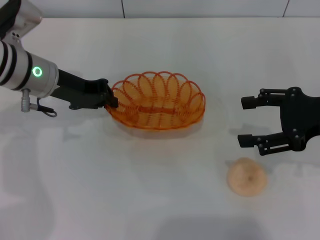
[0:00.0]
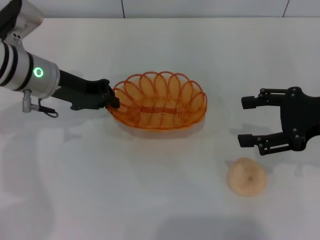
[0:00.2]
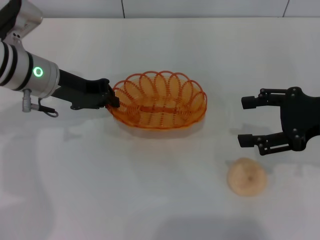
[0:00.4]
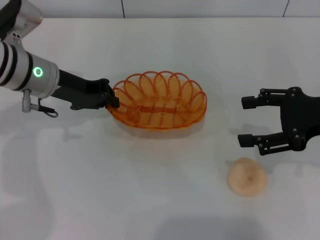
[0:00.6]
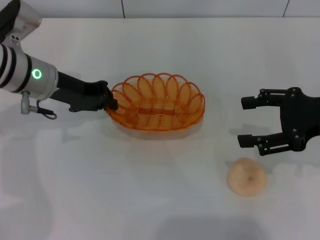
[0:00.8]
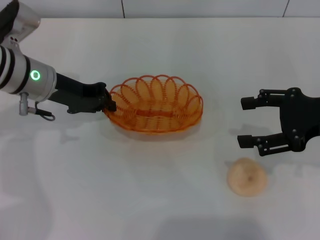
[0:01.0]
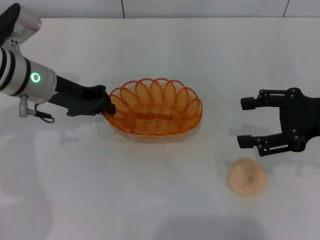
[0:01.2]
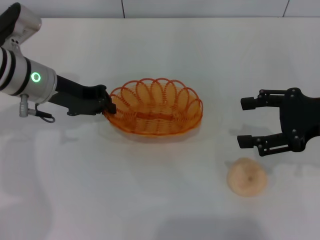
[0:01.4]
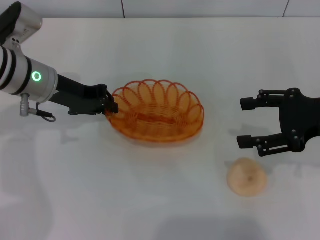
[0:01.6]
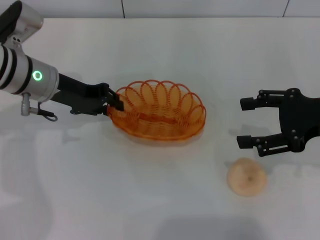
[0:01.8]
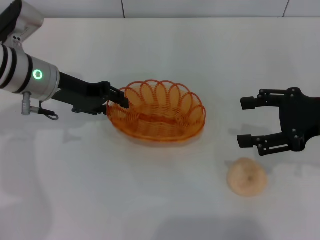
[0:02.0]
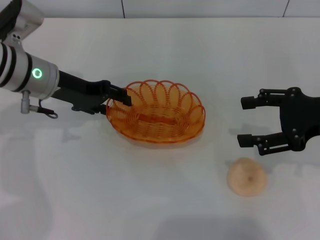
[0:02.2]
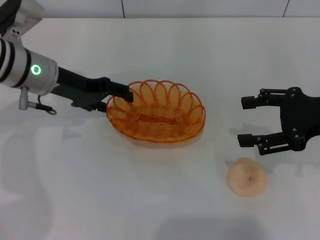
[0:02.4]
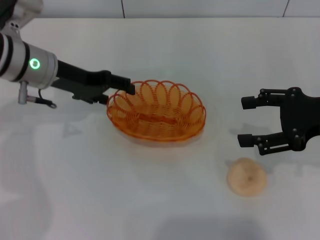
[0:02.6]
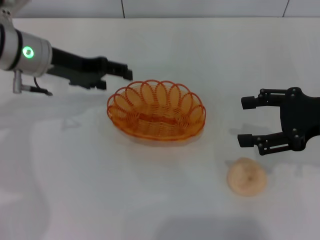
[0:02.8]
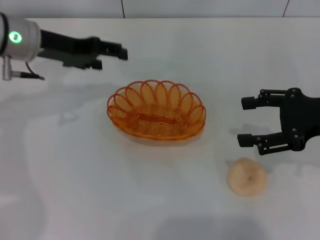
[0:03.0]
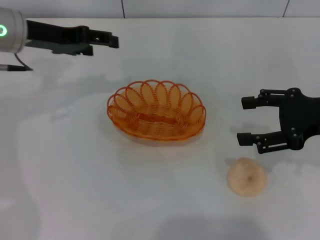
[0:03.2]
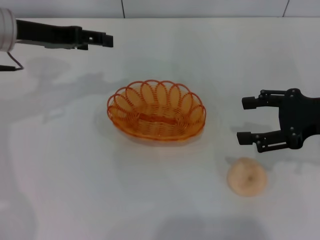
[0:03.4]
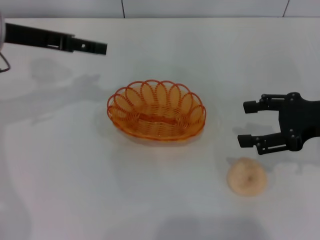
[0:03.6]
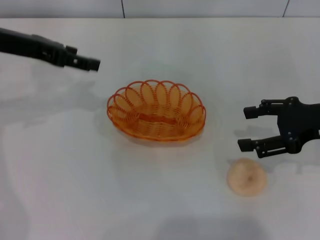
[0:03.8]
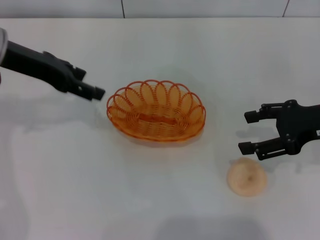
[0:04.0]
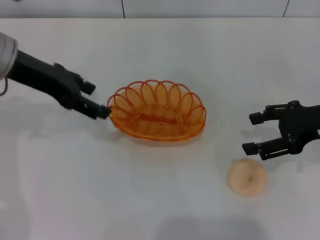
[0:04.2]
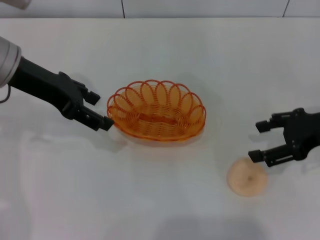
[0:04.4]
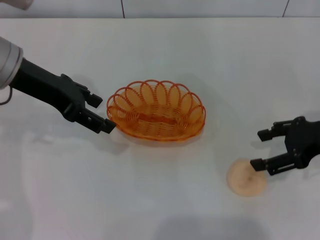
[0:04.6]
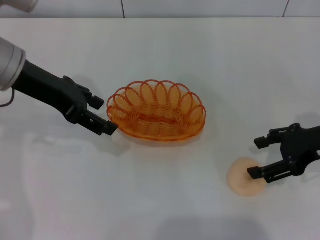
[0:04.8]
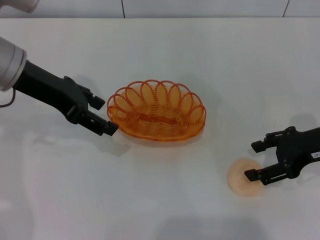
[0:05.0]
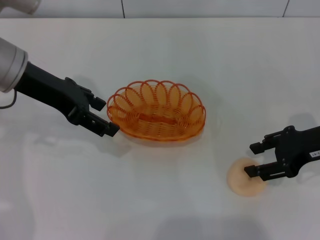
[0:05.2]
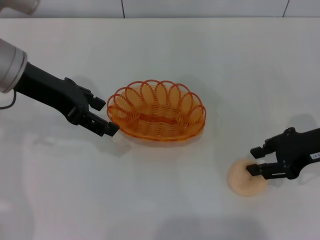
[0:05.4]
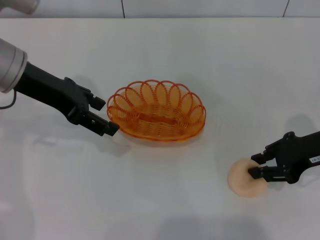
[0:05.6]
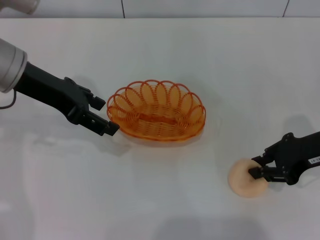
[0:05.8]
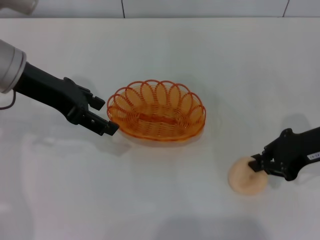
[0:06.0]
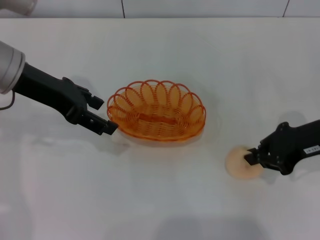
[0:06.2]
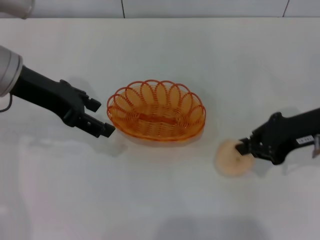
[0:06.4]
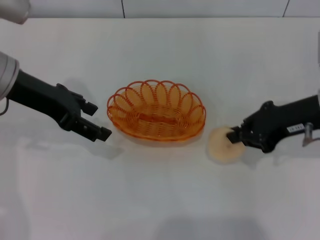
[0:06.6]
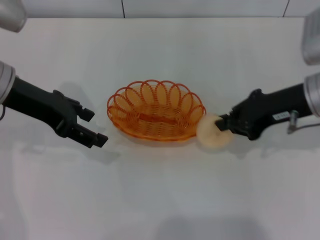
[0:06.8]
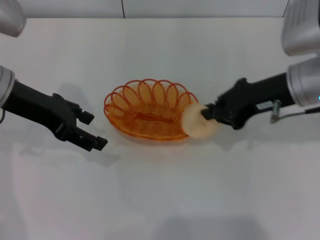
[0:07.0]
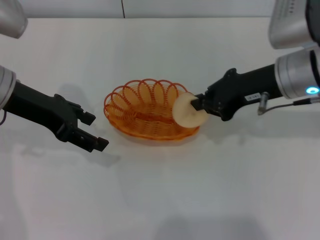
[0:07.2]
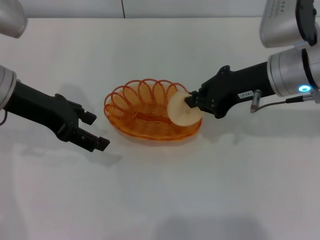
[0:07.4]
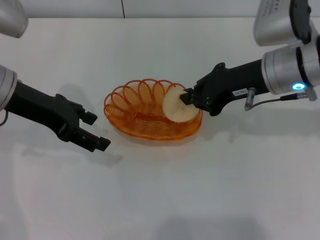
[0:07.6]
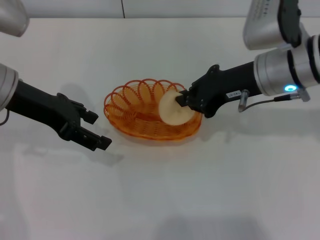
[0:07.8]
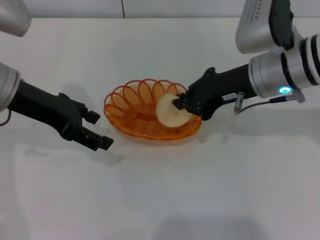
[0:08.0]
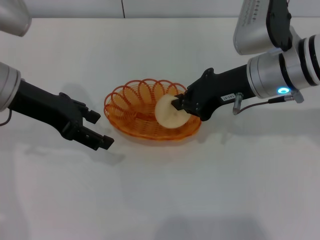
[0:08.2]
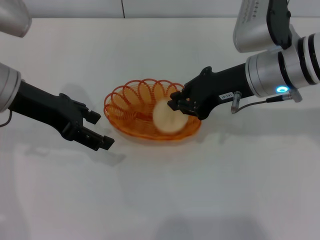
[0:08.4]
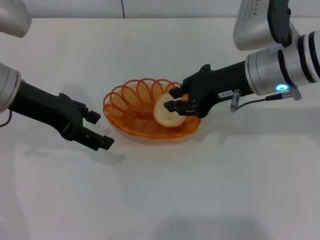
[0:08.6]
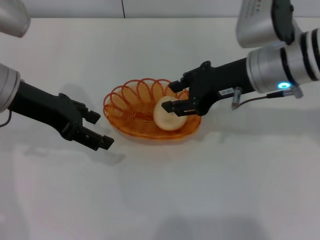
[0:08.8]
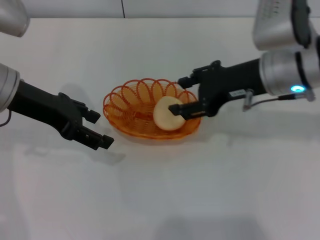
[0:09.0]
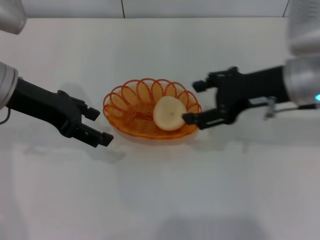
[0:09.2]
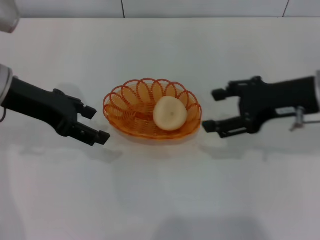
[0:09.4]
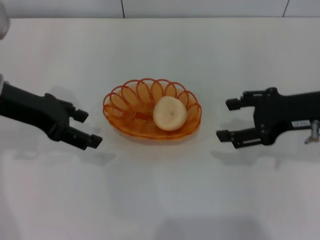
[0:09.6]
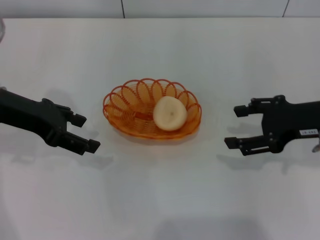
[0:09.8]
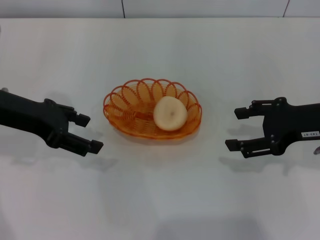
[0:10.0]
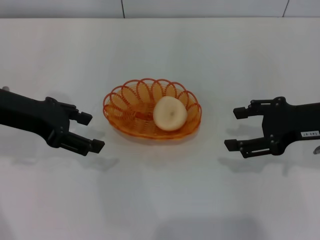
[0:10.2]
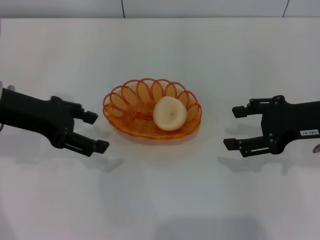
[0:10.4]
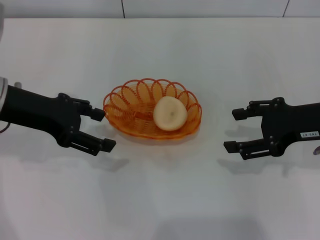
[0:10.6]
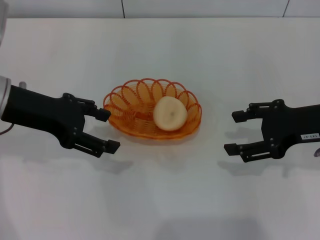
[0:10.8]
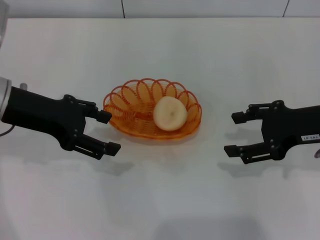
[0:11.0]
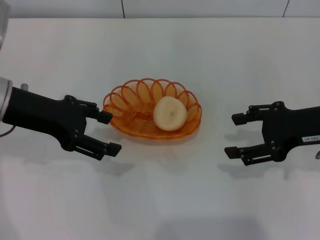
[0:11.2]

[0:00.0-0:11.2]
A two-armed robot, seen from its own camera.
Step, 0:00.0 to 0:02.8: Place the basket in the center of view with the left gripper.
Step, 0:03.0 to 0:07.0: Pick up the egg yolk pastry with the right gripper.
Step, 0:07.2 to 0:09.2: Place the egg yolk pastry into the basket with the right gripper.
0:00.0 to 0:01.6: Neither gripper changes place.
0:01.6 to 0:03.2: The left gripper travels upward by about 5 cm, and opens up.
0:03.2 to 0:04.8: The left gripper changes place by roughly 5 cm.
0:04.8 to 0:06.4: The right gripper closes up.
0:06.4 to 0:08.0: The right gripper travels to the left by roughly 10 cm.
0:08.0 to 0:09.6: The right gripper travels to the right and backward by roughly 10 cm, and opens up.
0:09.6 to 0:11.2: The grippers move only a little.
